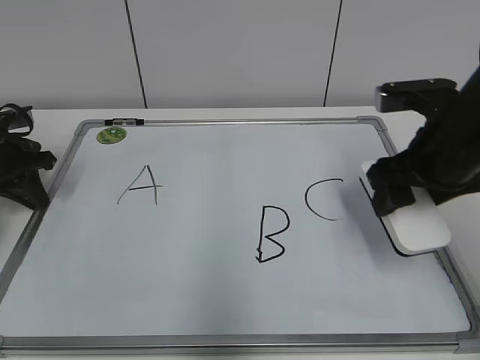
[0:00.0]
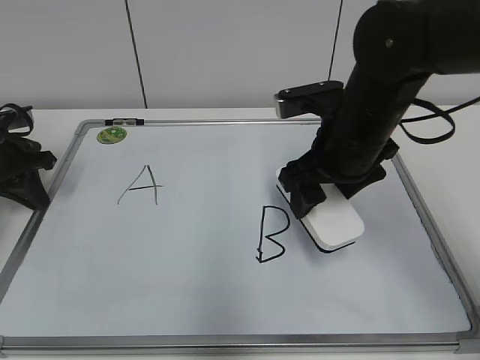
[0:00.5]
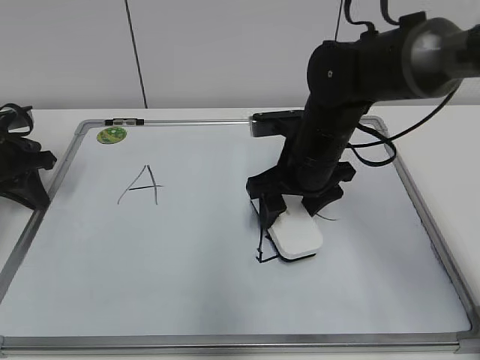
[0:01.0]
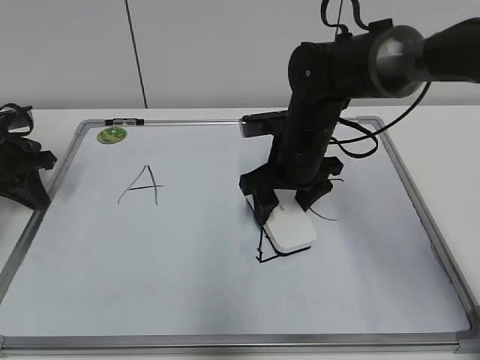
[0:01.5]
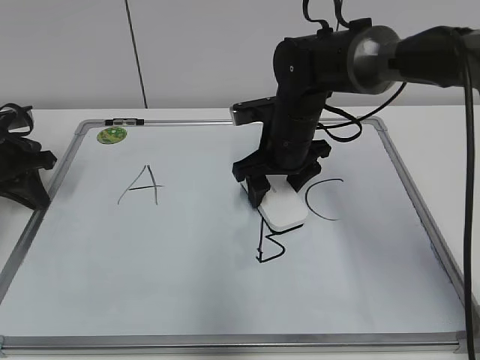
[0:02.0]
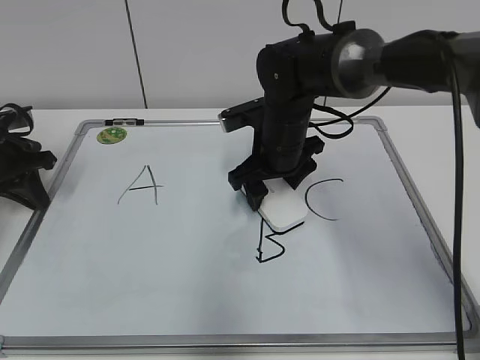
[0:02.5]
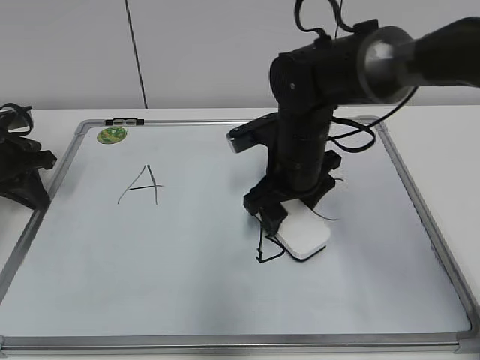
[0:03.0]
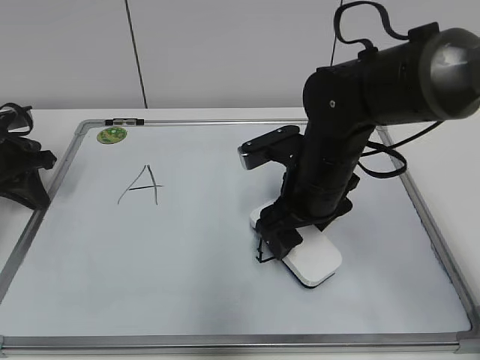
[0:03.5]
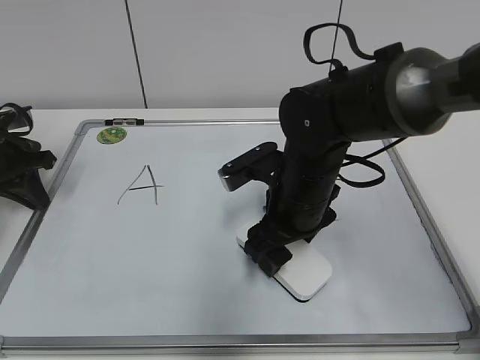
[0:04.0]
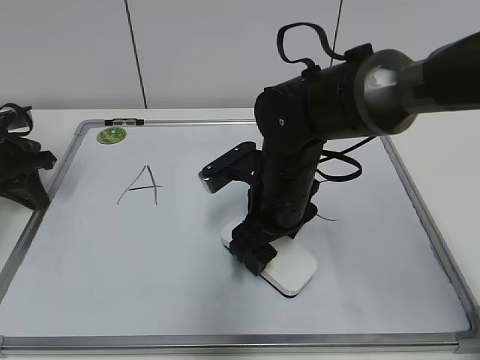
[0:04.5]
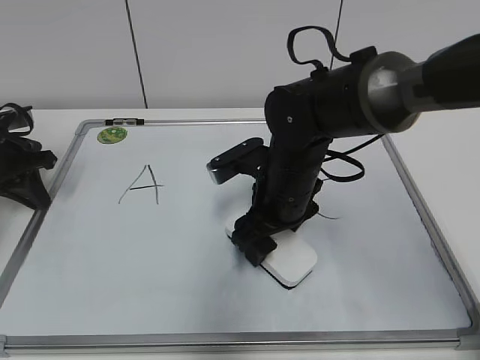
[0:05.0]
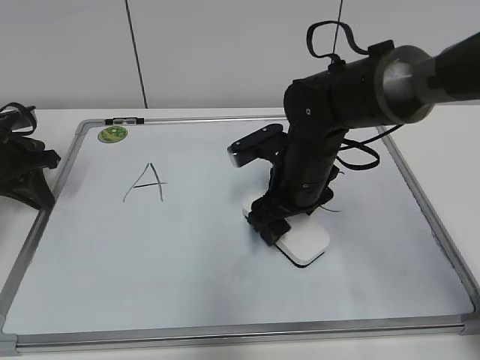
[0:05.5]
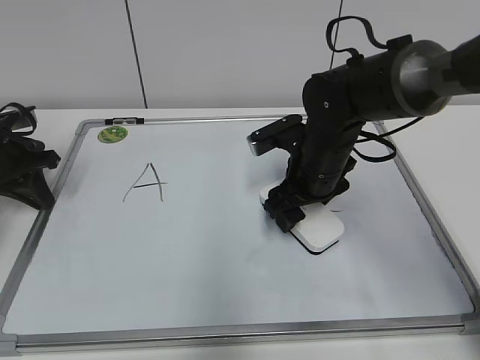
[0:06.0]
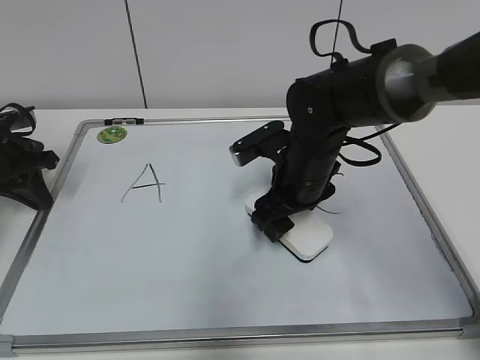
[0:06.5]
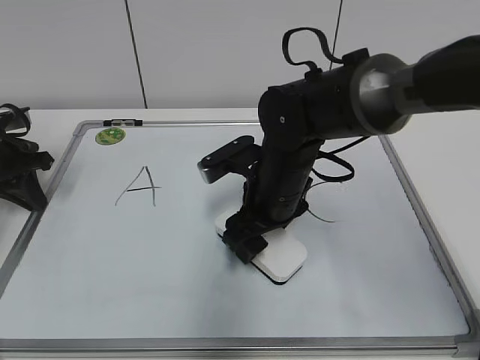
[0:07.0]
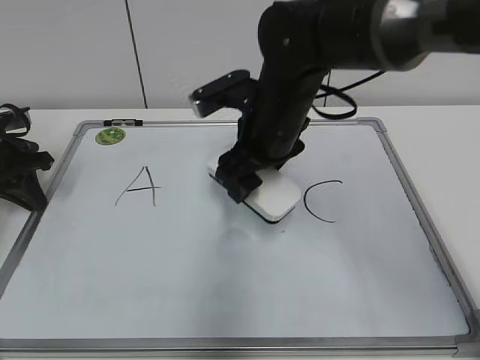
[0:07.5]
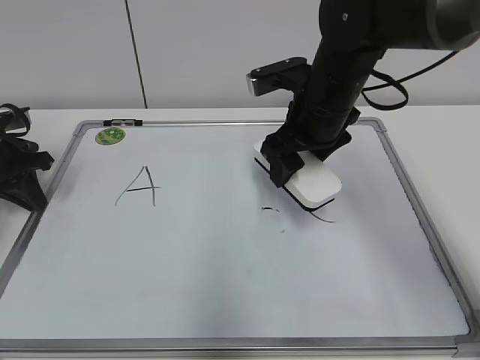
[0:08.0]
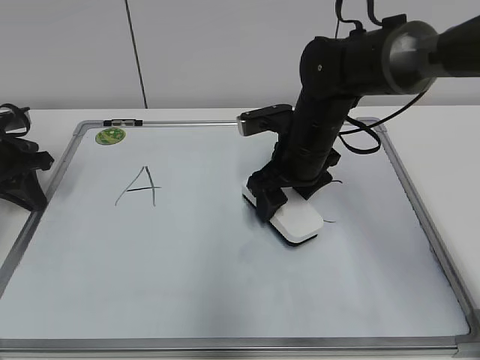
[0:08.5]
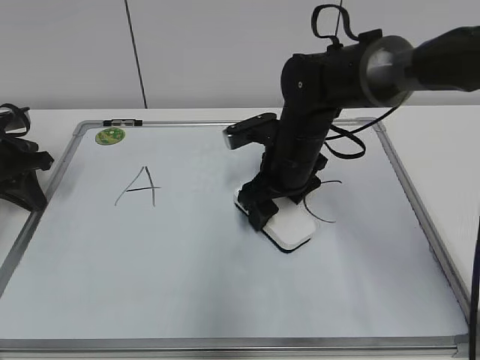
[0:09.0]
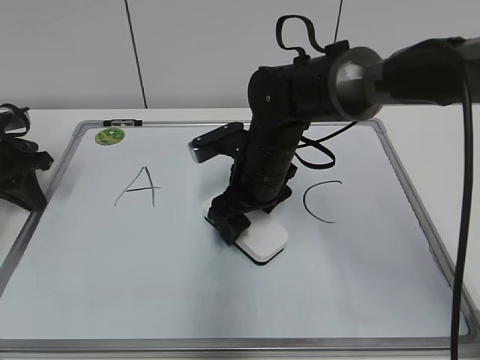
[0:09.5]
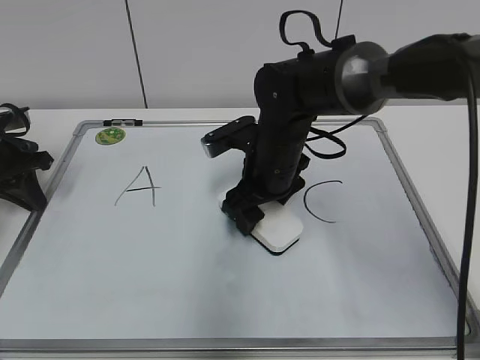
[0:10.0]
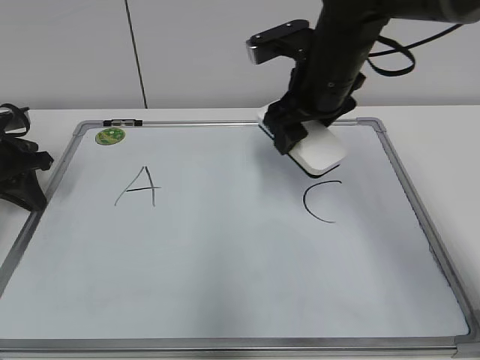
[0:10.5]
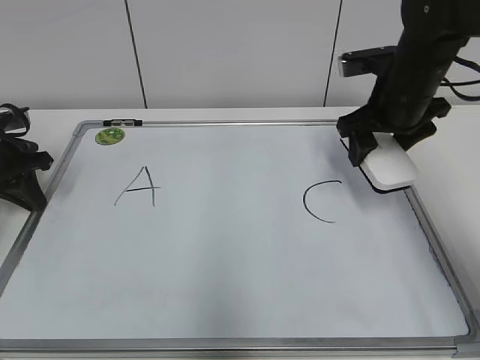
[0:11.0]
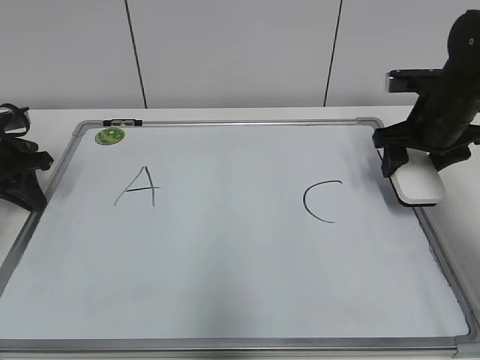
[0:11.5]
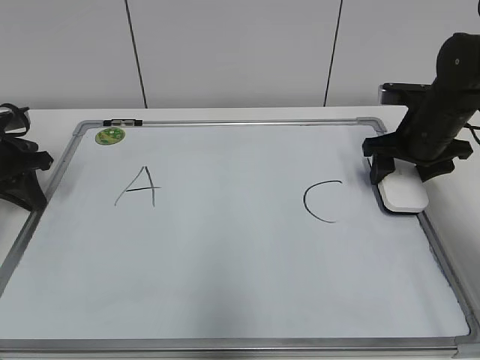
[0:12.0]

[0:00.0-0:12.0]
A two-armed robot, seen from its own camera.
Task of the whole recording: pick up the eraser on the blackboard and erase the letter "B".
Step, 0:00.0 to 0:09.5: Erase the letter B with your right hand.
0:00.0 to 0:02.0: The right gripper shifts some 20 cm to the left, forward and downward.
0:02.0 to 0:04.0: The right gripper travels backward by roughly 10 cm.
0:04.0 to 0:06.0: The right gripper shifts roughly 5 cm forward.
0:06.0 to 0:08.0: The right gripper shifts roughly 10 cm upward.
0:08.0 to 0:10.0: The right gripper travels downward and to the left by about 10 cm.
0:10.0 to 0:12.0: The right gripper travels to the right by some 20 cm.

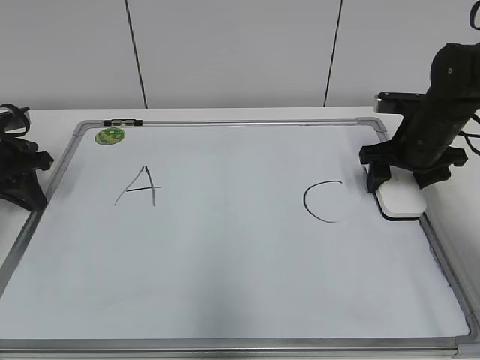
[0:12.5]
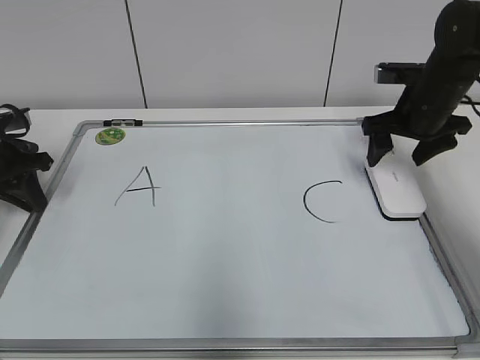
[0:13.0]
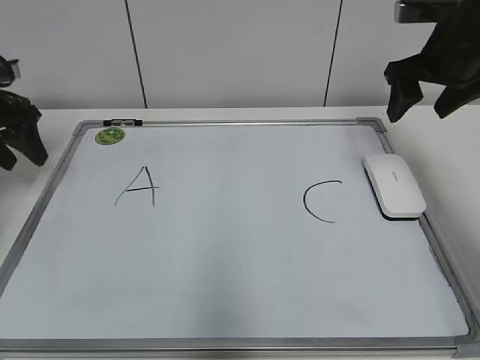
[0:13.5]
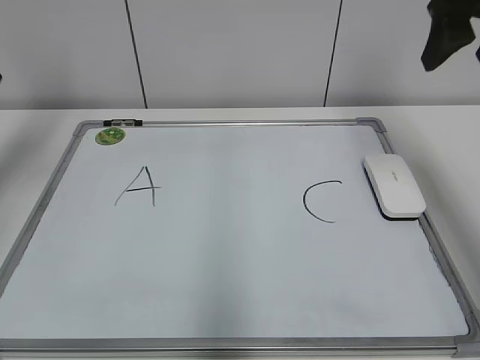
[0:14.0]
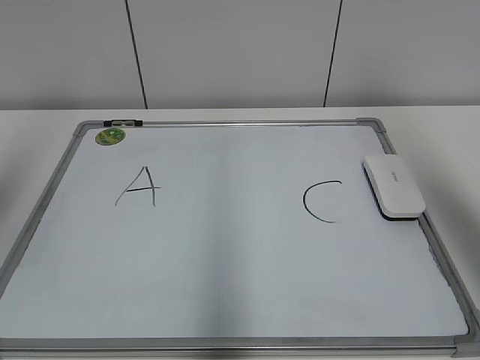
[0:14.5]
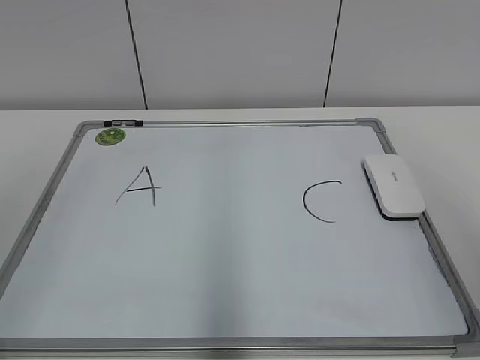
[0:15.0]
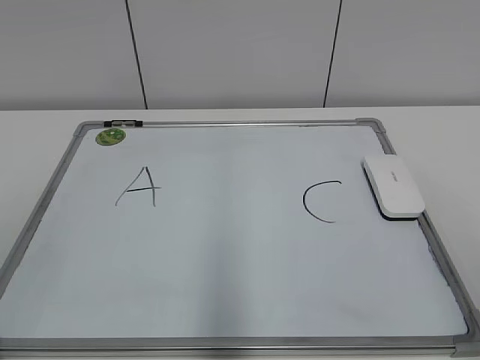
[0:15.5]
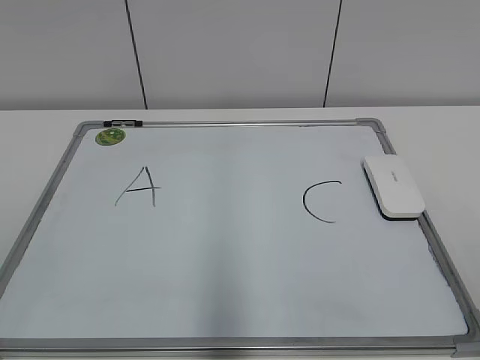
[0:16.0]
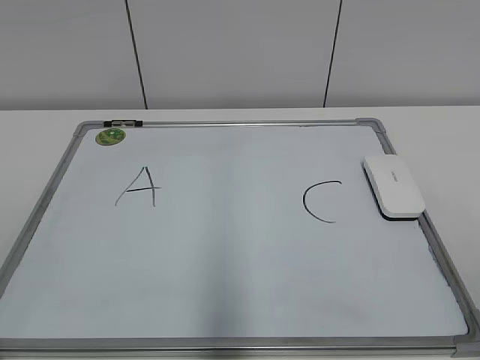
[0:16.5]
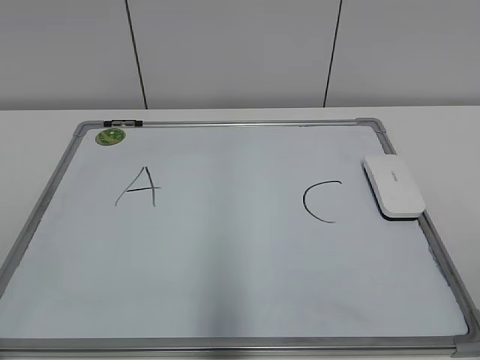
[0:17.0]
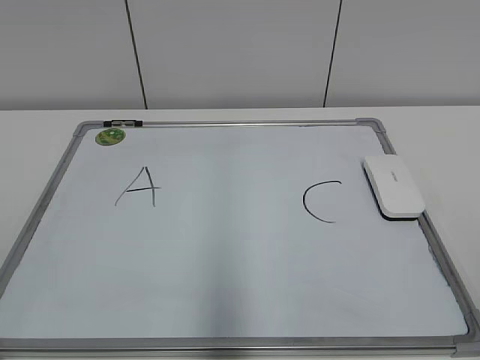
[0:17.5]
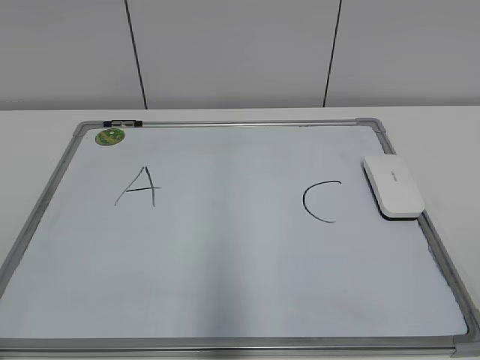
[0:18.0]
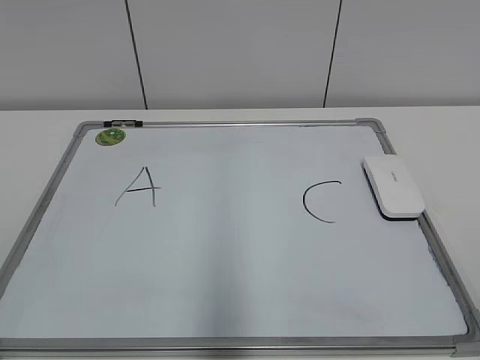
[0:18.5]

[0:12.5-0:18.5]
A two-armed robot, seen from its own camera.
Task of the whole recording: pick up the eraser on the blackboard and erase the letter "B".
0:12.5 to 0:14.5: Both grippers travel together upward and backward, about 30 cm. The left gripper opens.
0:14.5 to 0:16.5: Both grippers move backward and downward, roughly 25 cm.

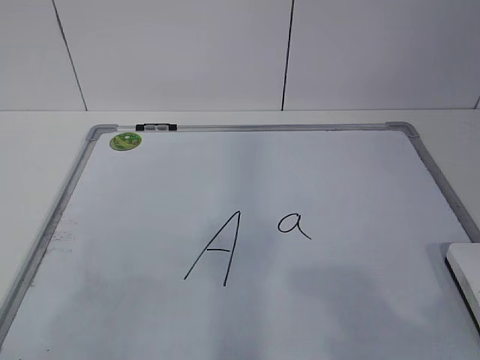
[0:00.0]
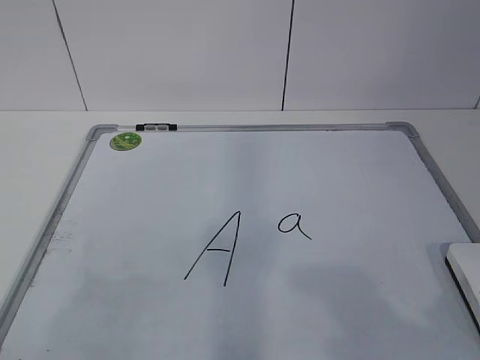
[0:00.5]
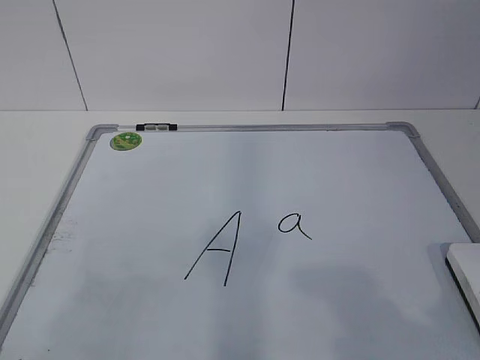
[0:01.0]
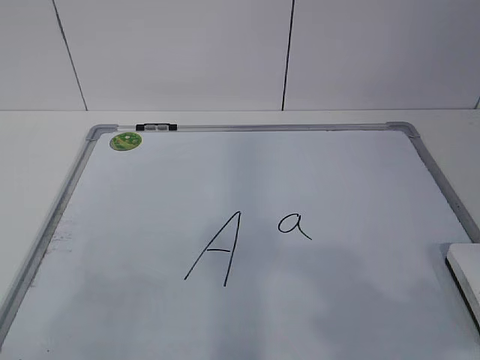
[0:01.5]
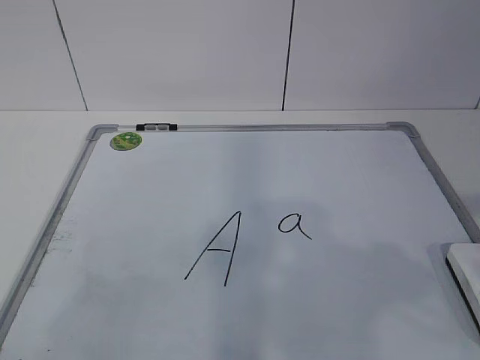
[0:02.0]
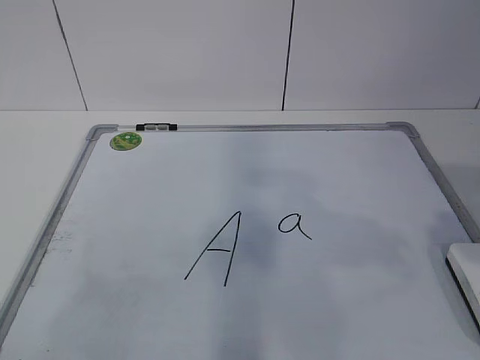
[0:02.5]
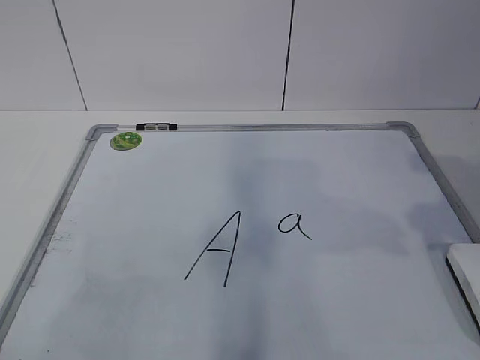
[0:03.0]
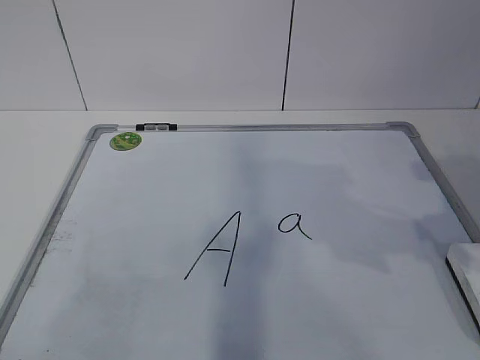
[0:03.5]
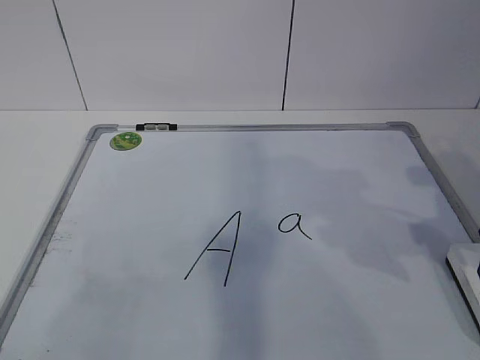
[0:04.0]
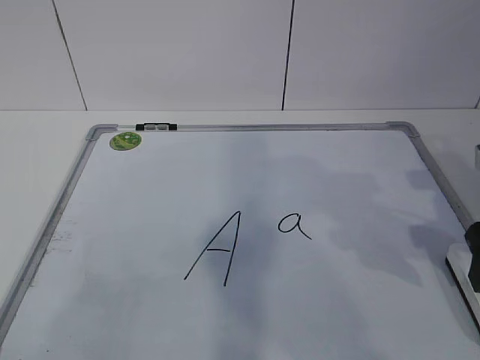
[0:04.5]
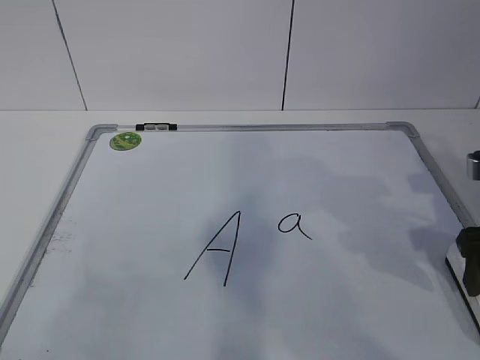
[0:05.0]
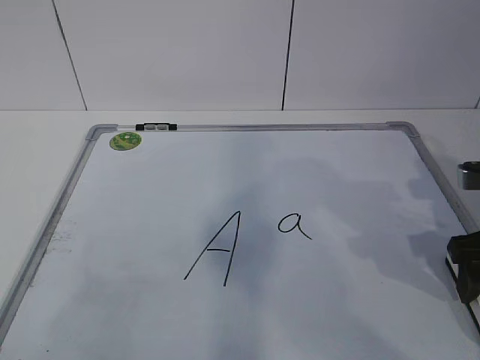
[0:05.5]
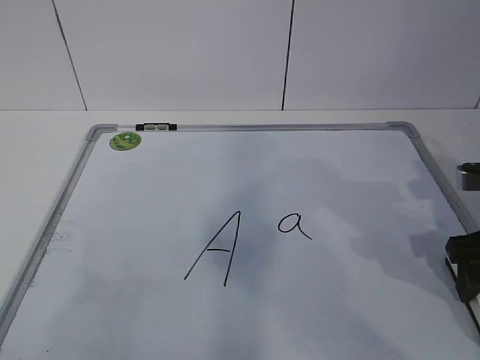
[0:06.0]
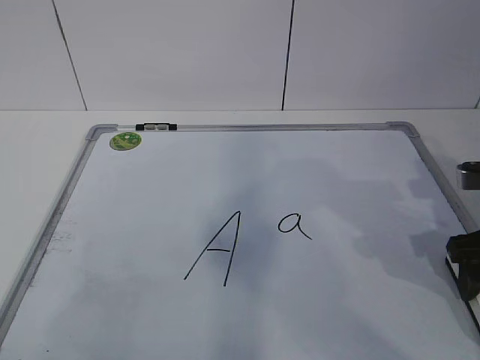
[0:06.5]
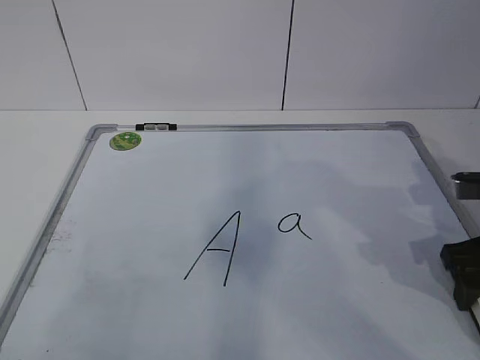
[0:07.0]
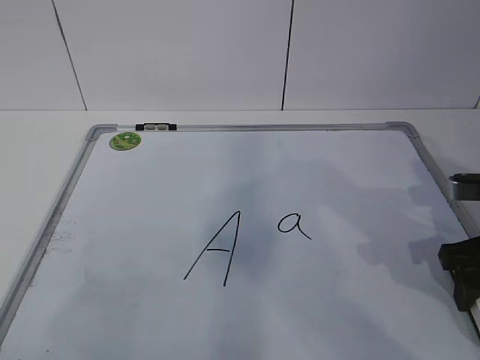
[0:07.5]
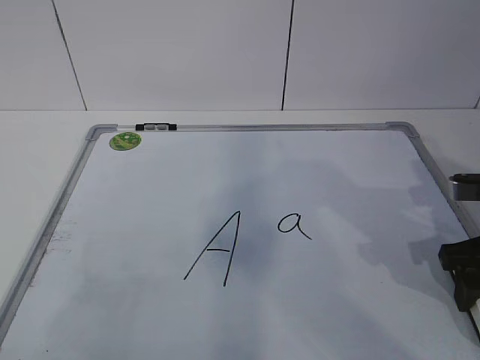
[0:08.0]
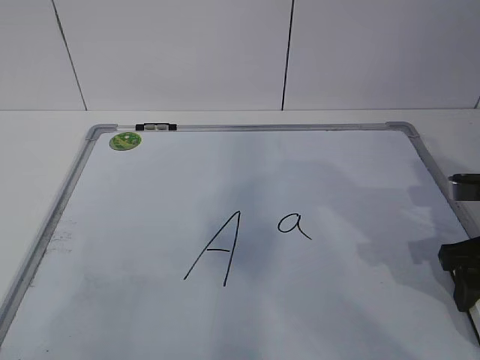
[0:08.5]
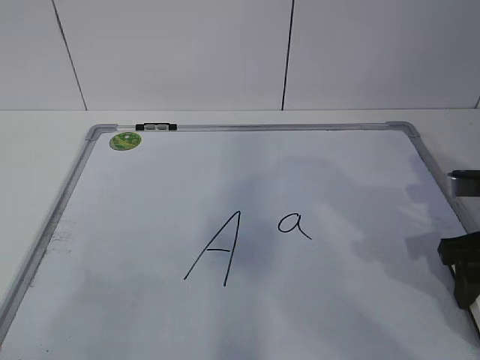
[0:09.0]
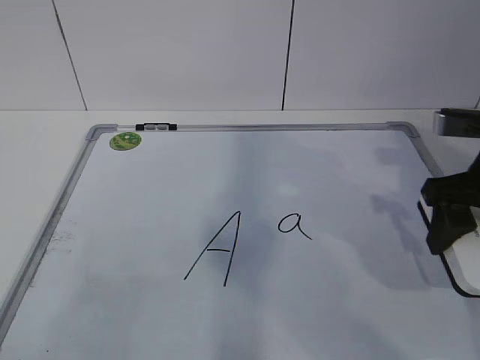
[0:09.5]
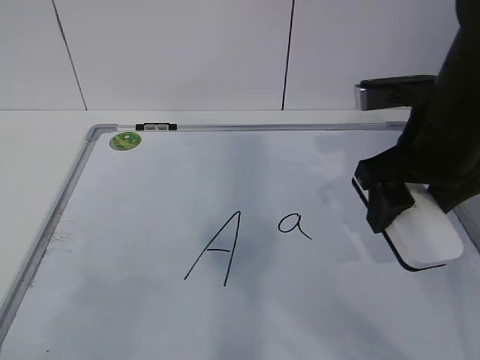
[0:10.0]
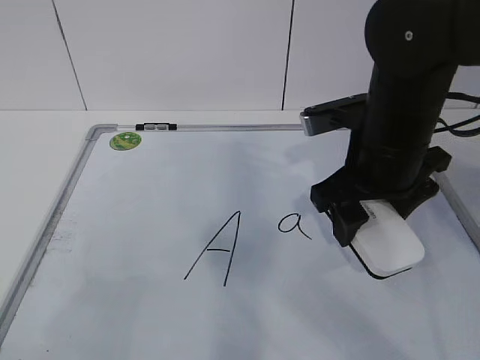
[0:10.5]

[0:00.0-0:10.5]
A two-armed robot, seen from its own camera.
Task of the whole recording: pick up the eraser on the blackboard and erase the letter "a".
0:02.0 to 0:04.0: The right gripper heads forward and downward, covering about 20 cm, and opens.
0:04.0 to 0:06.5: The right gripper is displaced downward by about 5 cm.
0:06.5 to 0:08.5: The right gripper closes its fingers.
0:08.5 to 0:10.5: The right gripper travels to the left and upward by approximately 15 cm.
